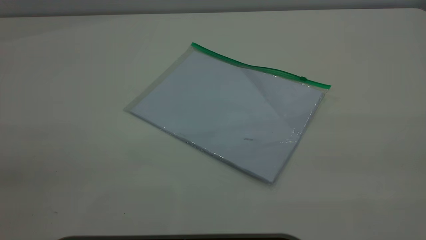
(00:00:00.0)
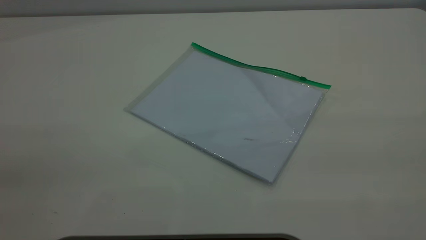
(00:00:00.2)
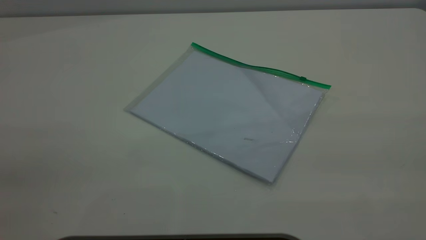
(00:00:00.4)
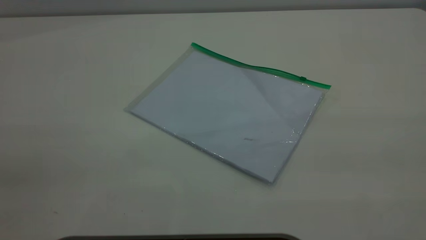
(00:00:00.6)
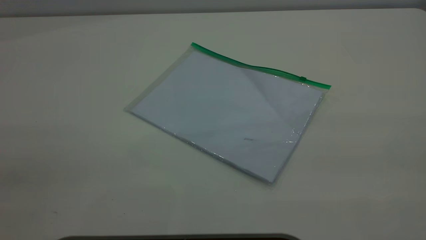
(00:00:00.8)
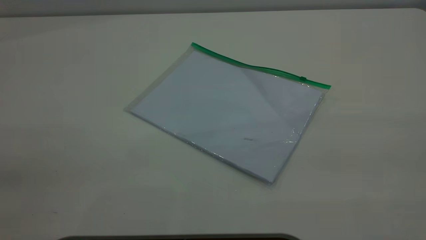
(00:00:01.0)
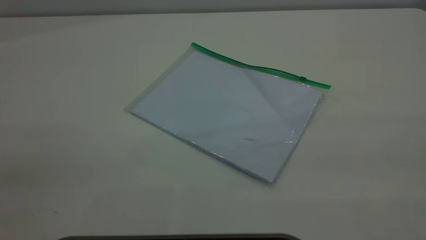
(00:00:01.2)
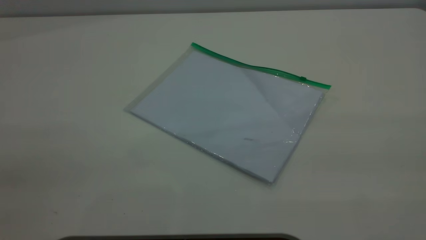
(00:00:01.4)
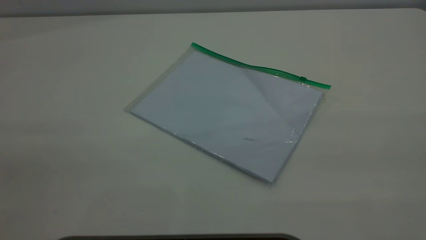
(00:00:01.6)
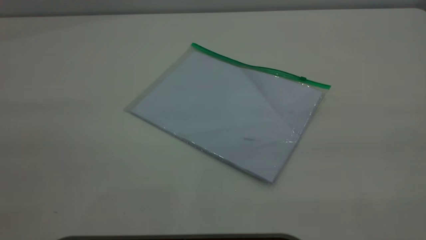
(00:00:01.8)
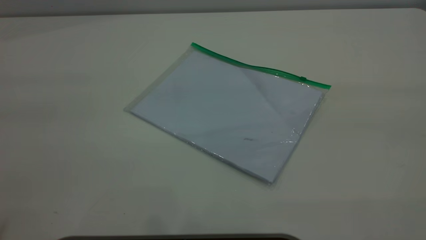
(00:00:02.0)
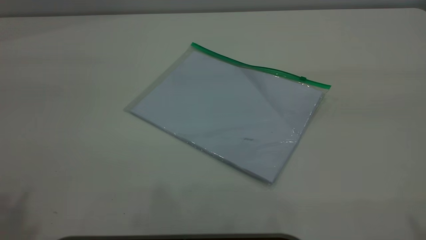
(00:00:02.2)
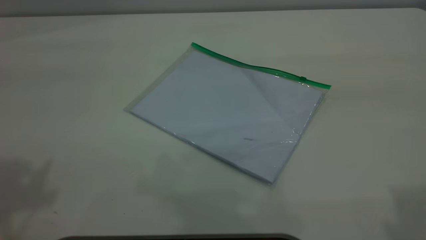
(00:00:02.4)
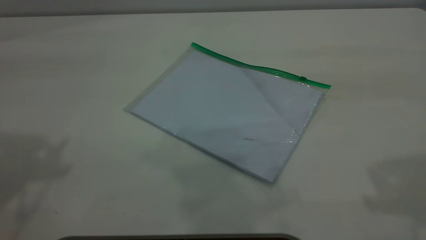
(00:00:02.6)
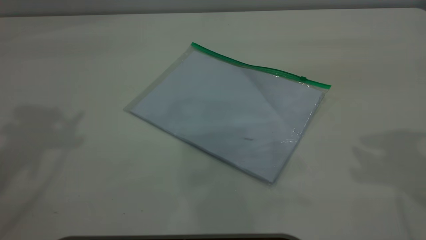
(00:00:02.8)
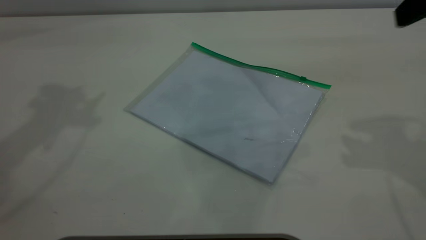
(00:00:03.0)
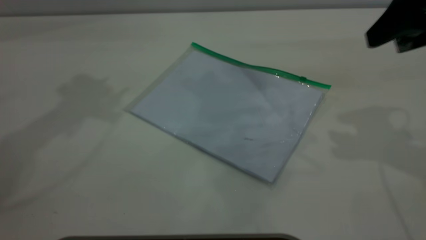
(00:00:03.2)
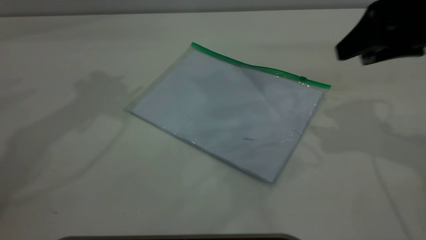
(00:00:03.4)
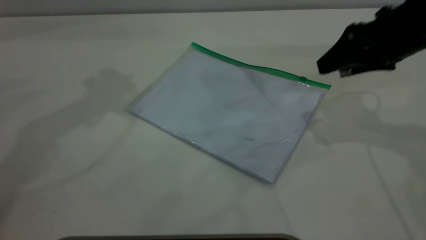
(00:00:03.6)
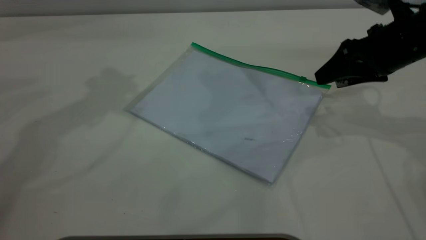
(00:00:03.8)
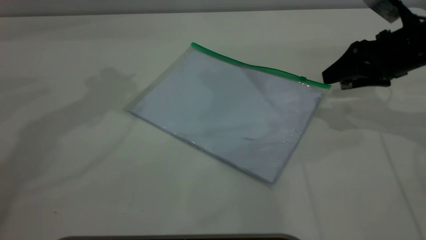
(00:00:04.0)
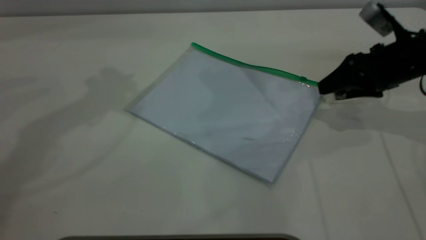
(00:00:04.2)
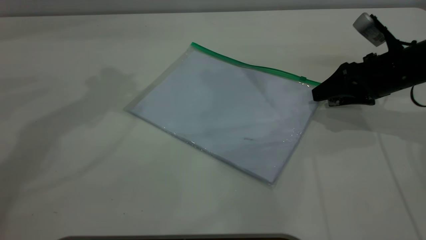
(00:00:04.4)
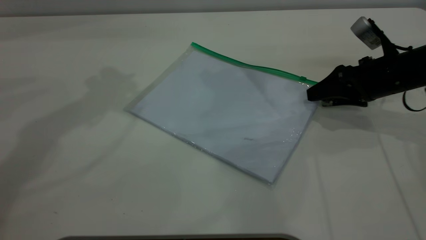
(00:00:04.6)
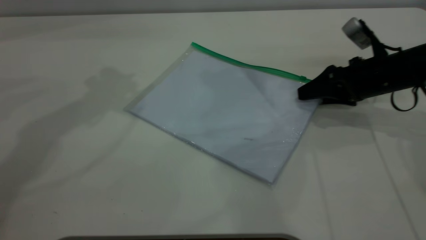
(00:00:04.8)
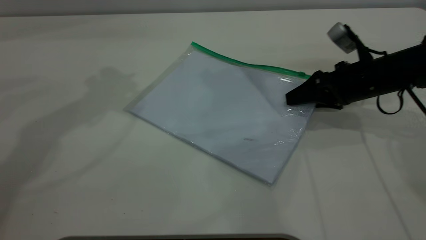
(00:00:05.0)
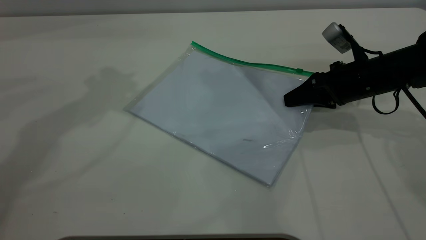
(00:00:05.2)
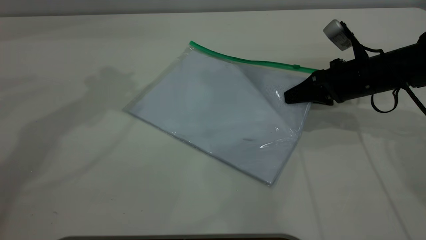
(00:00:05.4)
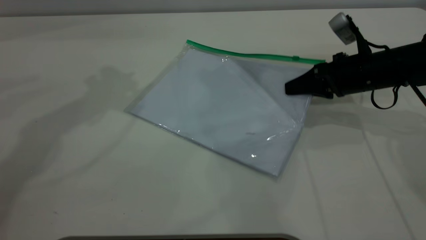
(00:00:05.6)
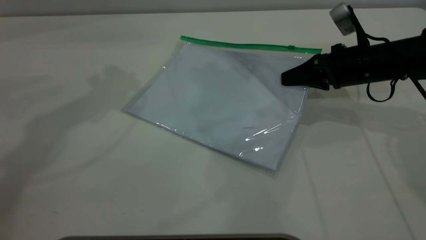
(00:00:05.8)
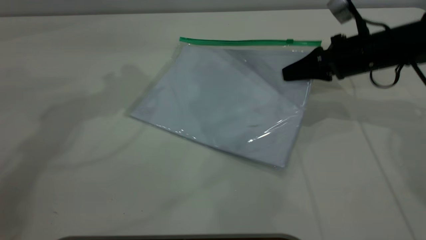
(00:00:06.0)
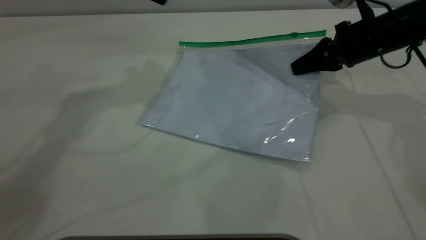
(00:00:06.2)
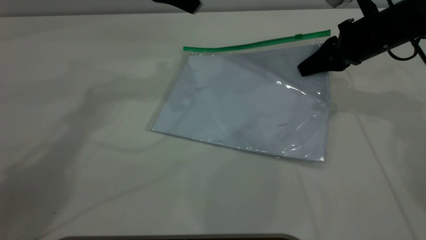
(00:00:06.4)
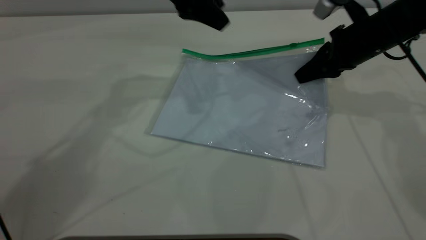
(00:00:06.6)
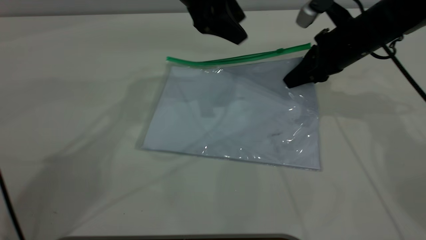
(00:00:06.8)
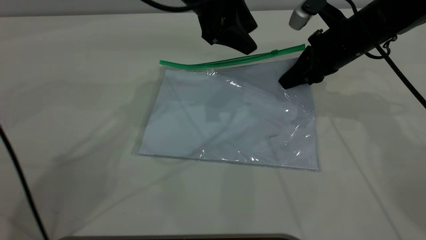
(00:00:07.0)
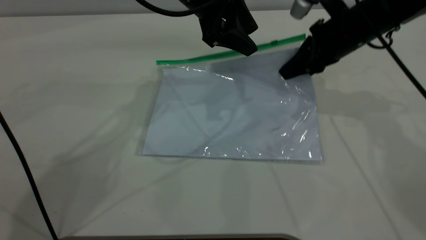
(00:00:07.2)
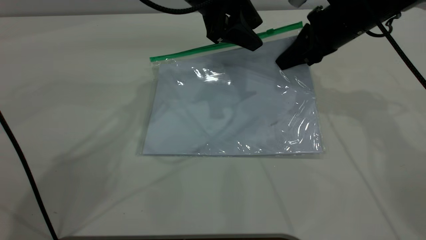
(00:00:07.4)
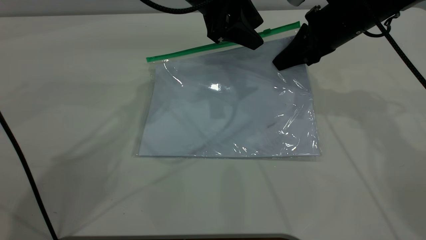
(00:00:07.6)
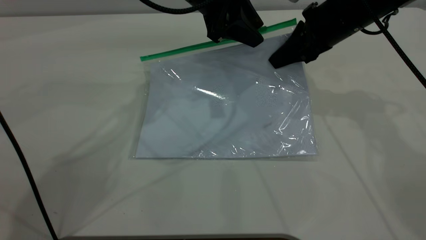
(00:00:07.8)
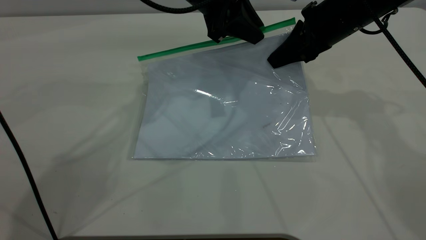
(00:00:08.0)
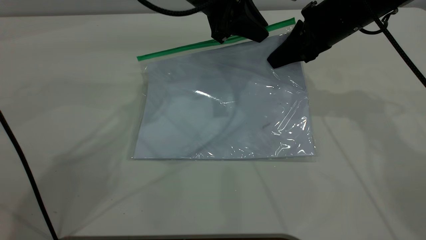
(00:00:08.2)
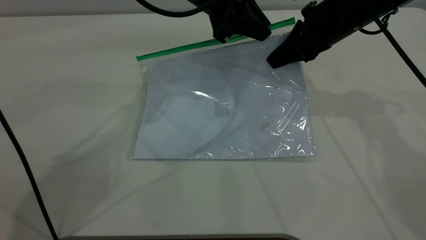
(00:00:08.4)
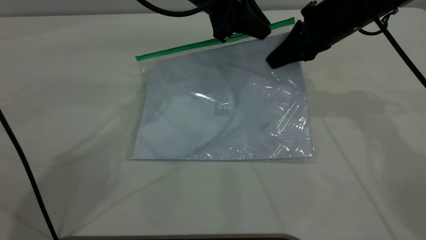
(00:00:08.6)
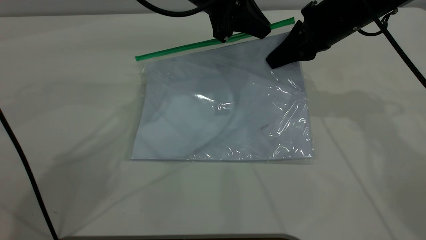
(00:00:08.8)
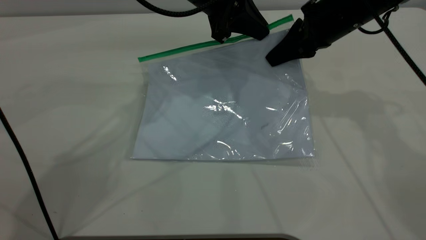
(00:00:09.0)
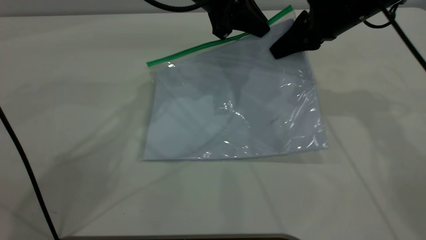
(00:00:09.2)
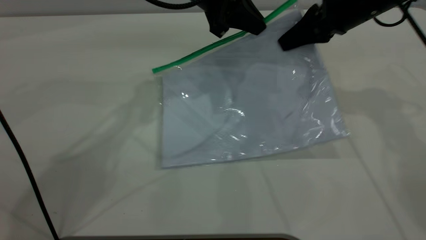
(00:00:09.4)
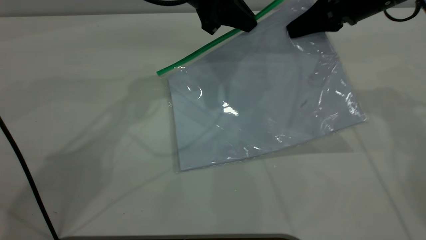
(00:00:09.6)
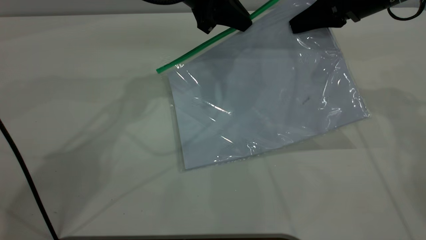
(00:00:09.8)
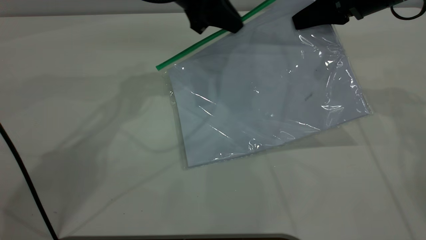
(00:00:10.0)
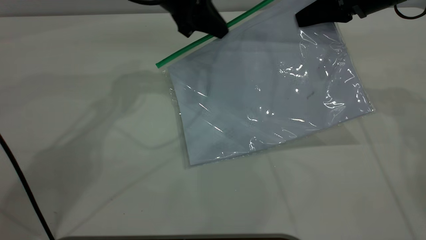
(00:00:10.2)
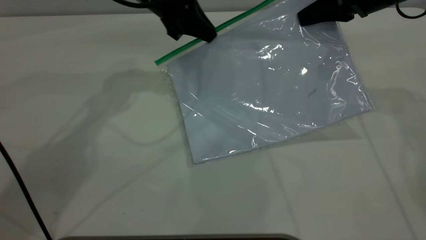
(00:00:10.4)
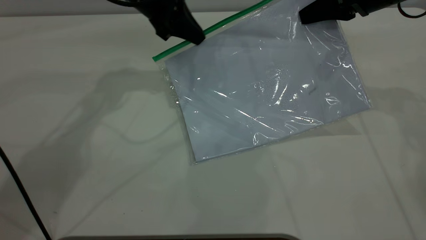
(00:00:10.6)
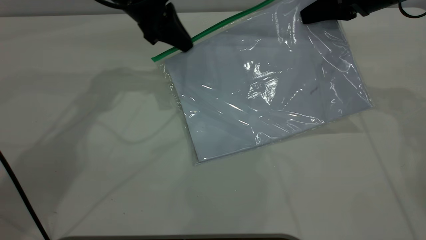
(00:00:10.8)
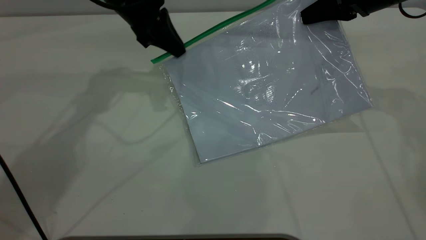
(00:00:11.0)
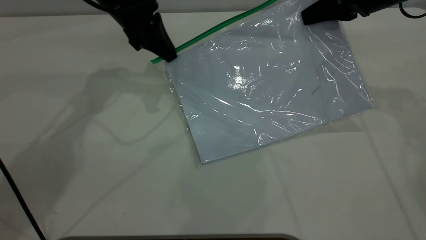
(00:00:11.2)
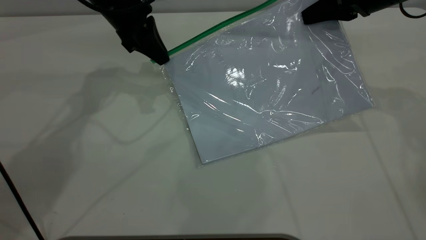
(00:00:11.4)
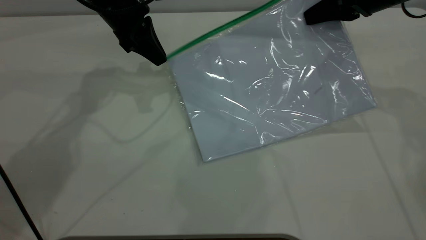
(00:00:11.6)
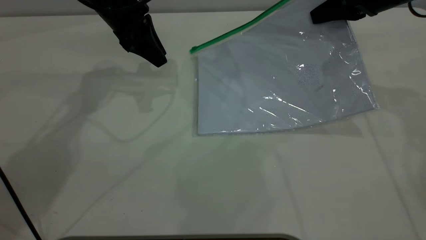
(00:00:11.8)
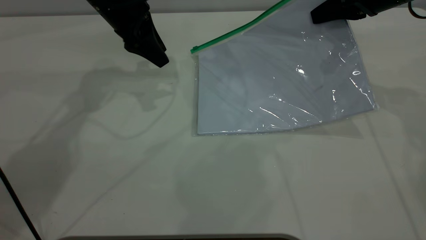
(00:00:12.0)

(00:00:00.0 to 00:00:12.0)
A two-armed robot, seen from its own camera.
Step, 00:00:00.0 - 00:00:06.6: Pick up the transparent plastic bag with the right gripper.
Step, 00:00:06.8 - 00:00:11.6: Pulling up the zipper on the transparent plastic bag with the left gripper to close it.
00:00:00.0 - 00:00:01.6: Neither gripper changes place.
00:00:01.6 - 00:00:03.0: The right gripper moves forward, roughly 30 cm.
00:00:03.0 - 00:00:04.4: The right gripper is displaced downward and forward by roughly 25 cm.
00:00:04.4 - 00:00:06.0: The right gripper changes place by approximately 5 cm, and closes; the left gripper is displaced downward by roughly 5 cm.
00:00:06.0 - 00:00:07.6: The right gripper is displaced upward by approximately 5 cm. Meanwhile the left gripper travels to the right and downward by some 20 cm.
00:00:07.6 - 00:00:09.0: The left gripper closes up.
00:00:09.0 - 00:00:10.4: The right gripper goes some 5 cm to the right; the left gripper travels to the left by about 10 cm.
00:00:10.4 - 00:00:12.0: The left gripper moves to the left, some 5 cm, and opens its fingers.

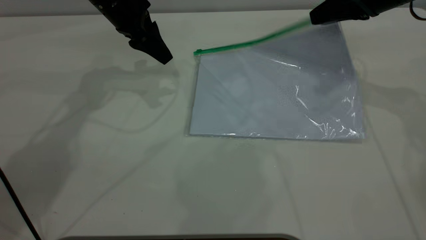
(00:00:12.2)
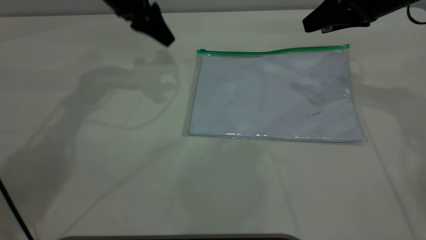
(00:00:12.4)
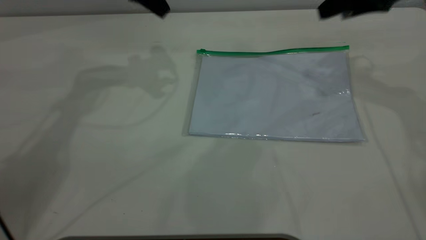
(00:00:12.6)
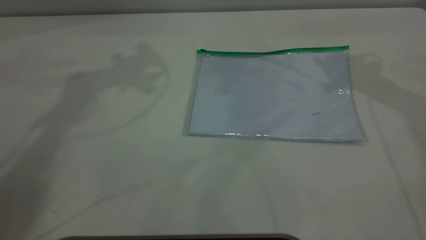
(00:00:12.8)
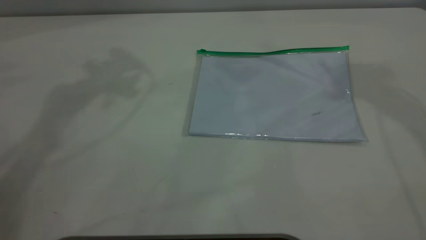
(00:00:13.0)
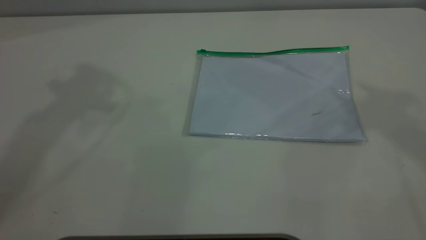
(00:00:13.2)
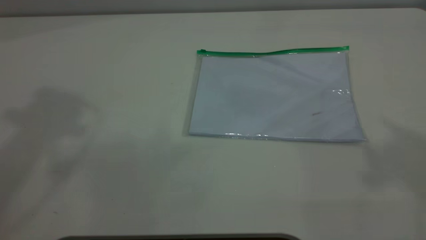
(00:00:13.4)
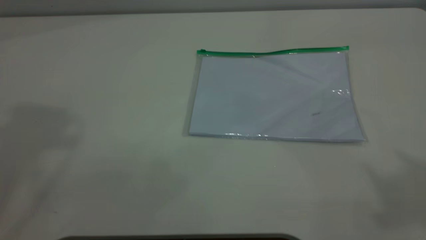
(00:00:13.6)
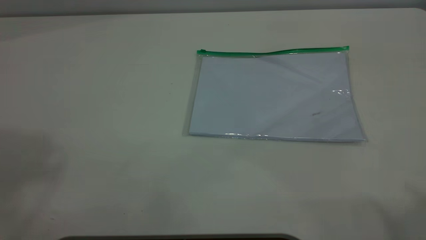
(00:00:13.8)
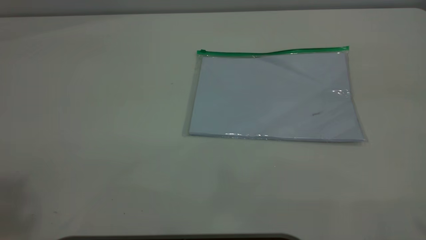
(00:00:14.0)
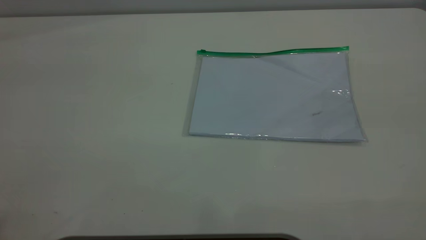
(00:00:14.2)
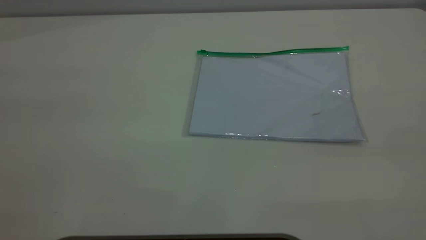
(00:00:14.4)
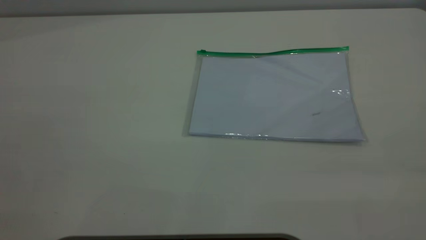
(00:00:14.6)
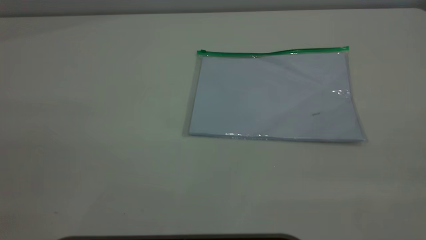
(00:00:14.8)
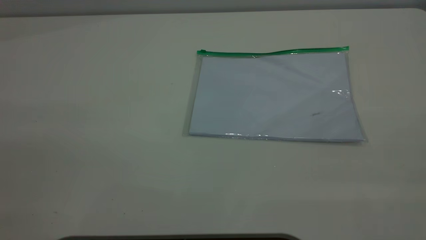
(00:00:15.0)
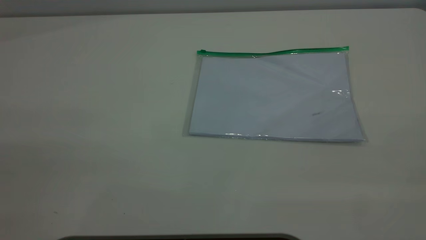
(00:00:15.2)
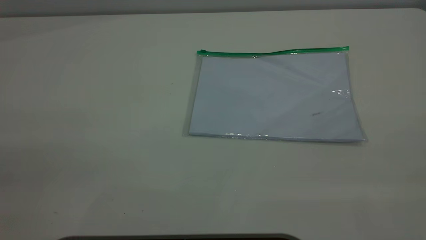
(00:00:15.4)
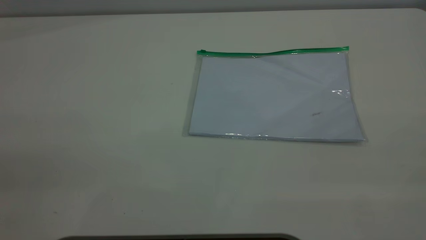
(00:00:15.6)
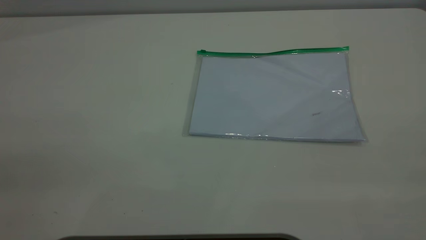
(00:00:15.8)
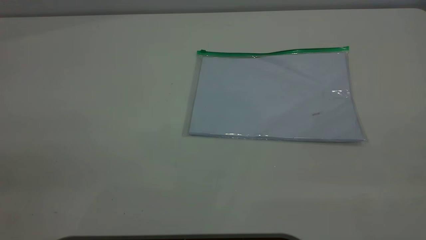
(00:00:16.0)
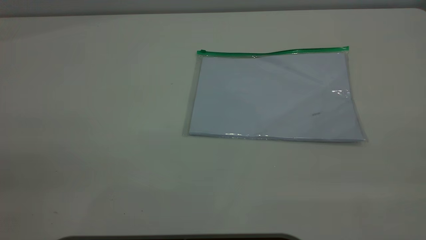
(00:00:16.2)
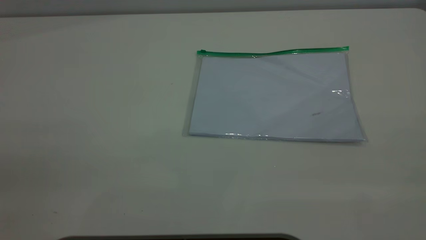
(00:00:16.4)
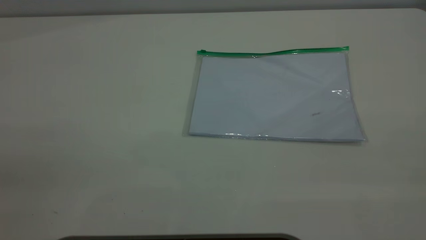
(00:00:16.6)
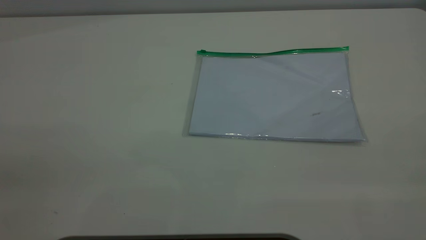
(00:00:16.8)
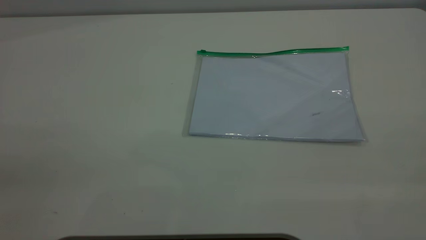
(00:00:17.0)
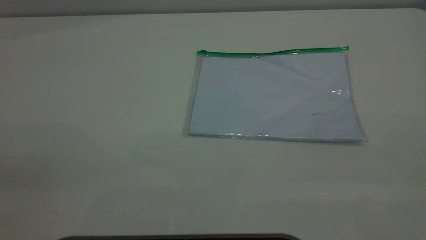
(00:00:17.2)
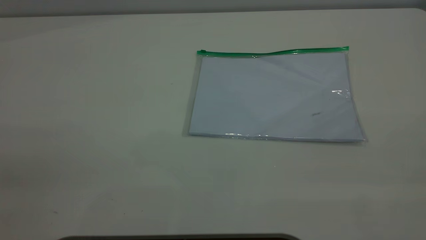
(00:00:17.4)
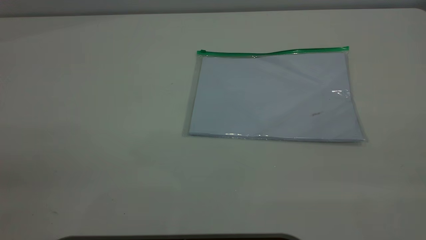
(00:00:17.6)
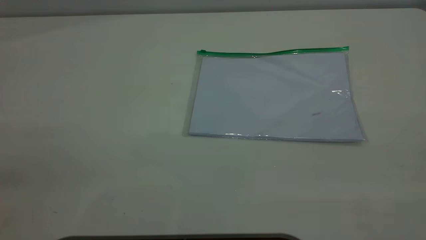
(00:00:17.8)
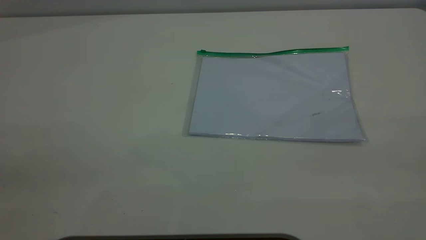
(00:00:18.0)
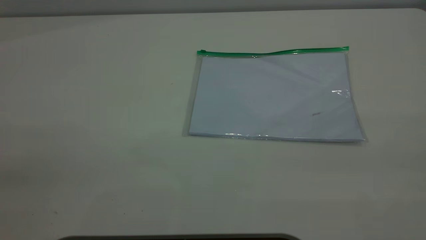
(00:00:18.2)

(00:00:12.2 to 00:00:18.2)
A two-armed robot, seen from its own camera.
Step, 00:00:12.2 - 00:00:13.2: Place the transparent plastic bag.
00:00:12.2 - 00:00:13.8: The grippers both shift upward and backward by roughly 50 cm.
